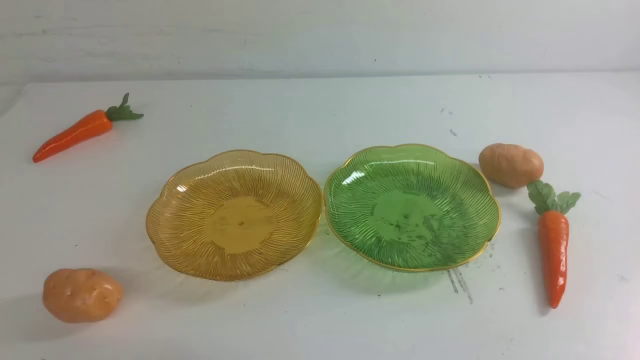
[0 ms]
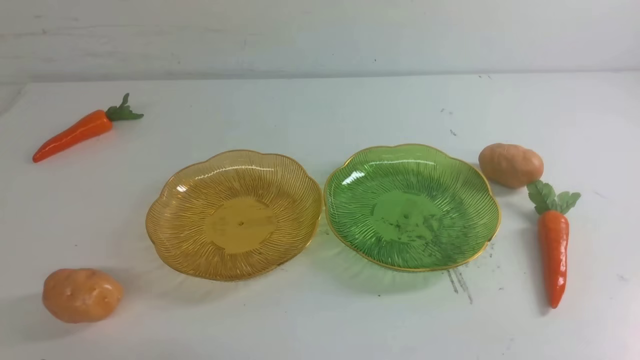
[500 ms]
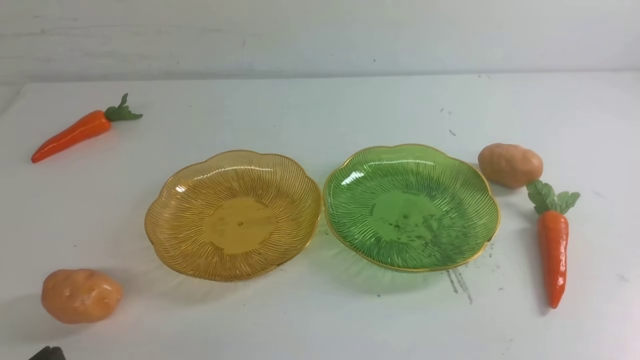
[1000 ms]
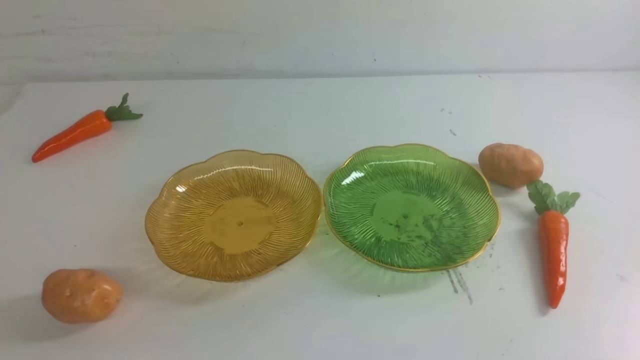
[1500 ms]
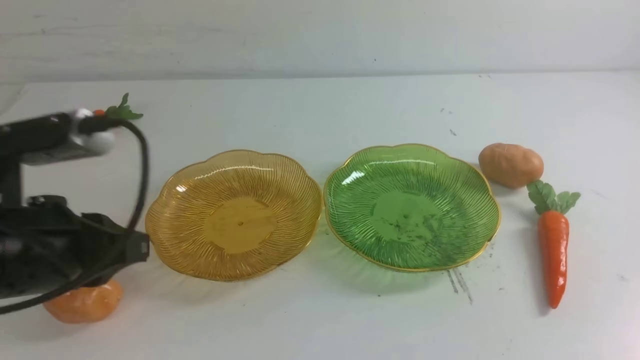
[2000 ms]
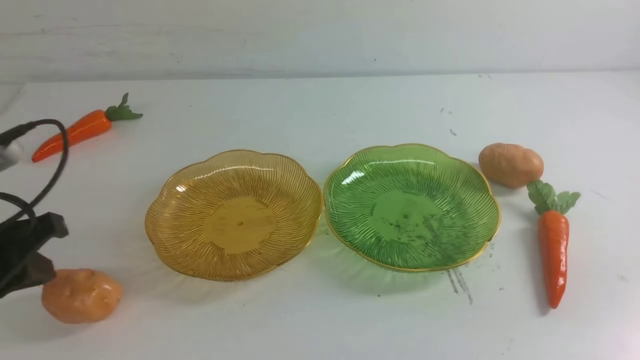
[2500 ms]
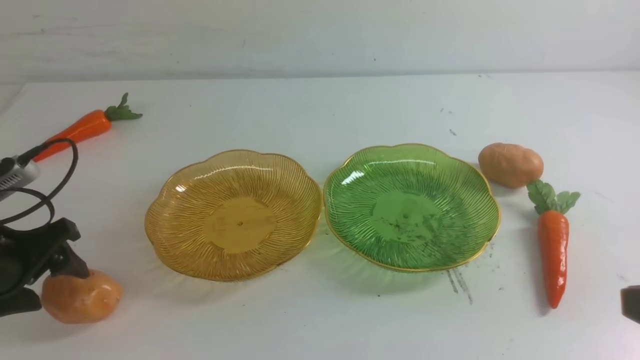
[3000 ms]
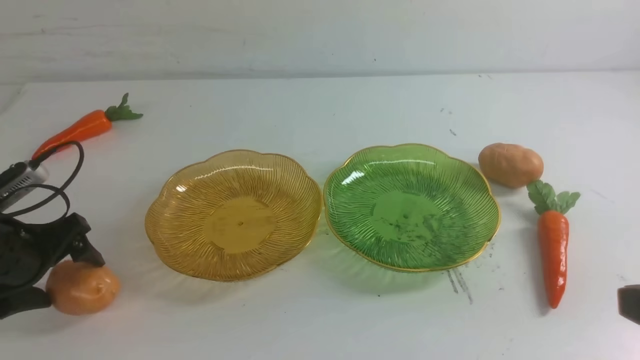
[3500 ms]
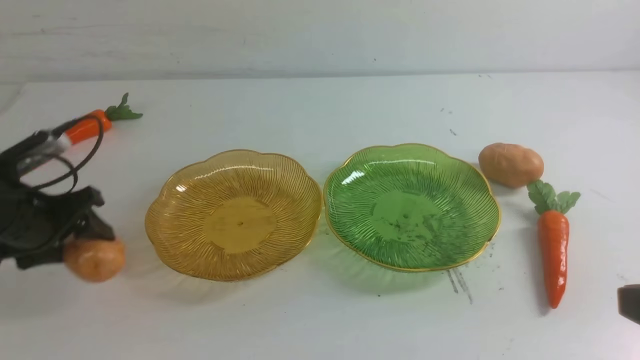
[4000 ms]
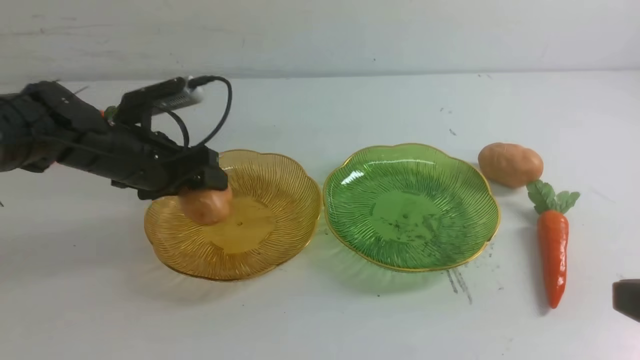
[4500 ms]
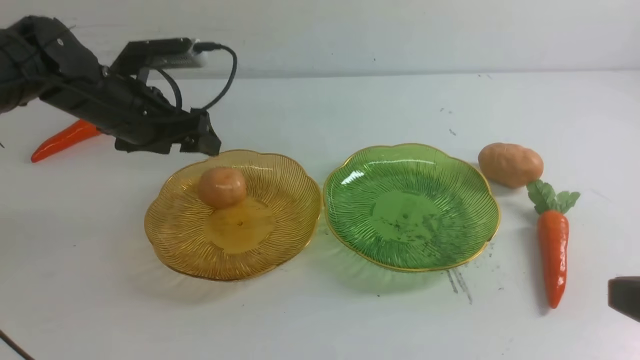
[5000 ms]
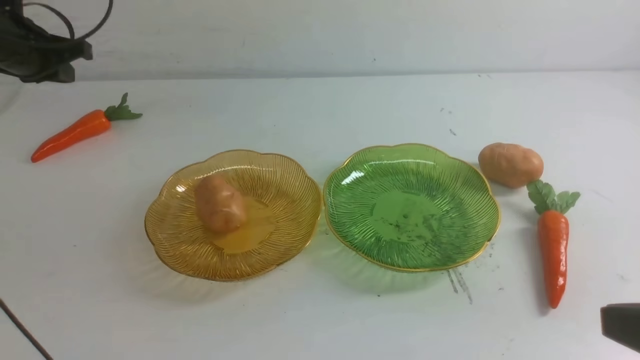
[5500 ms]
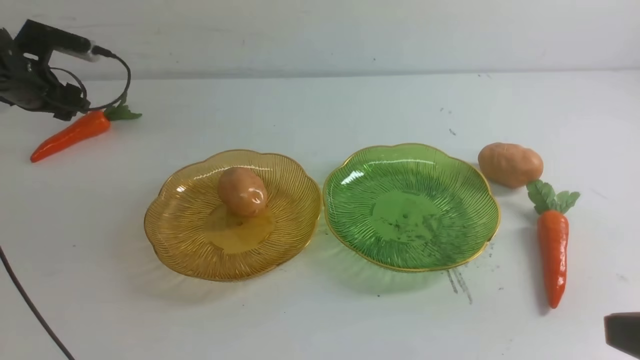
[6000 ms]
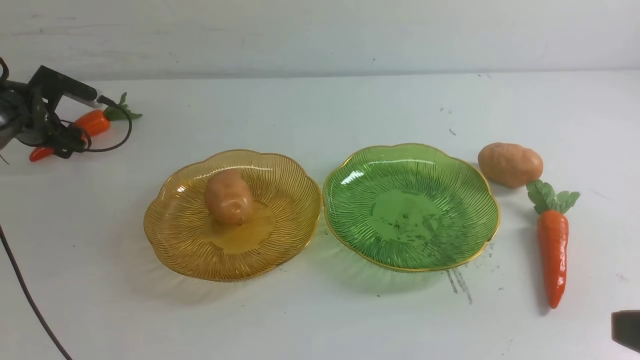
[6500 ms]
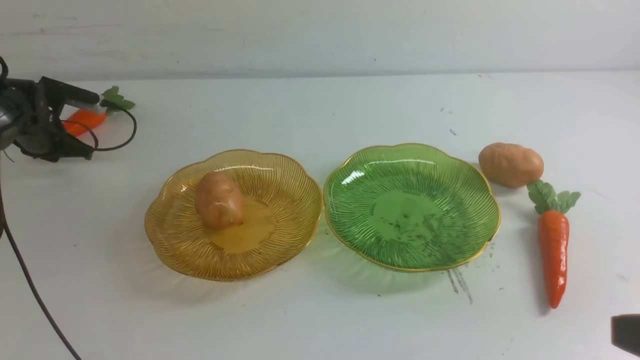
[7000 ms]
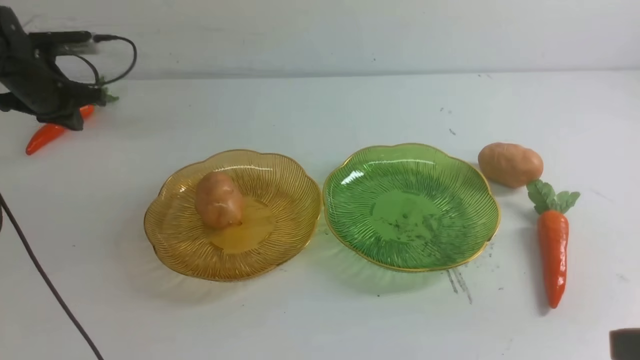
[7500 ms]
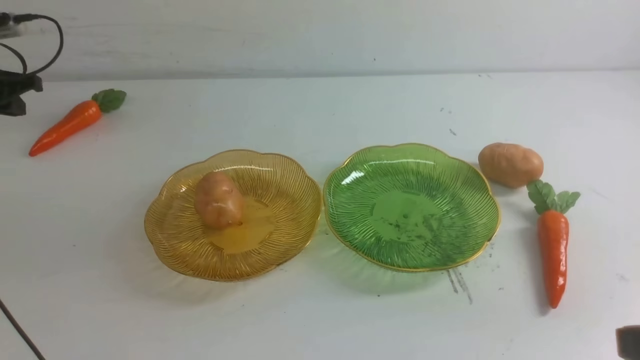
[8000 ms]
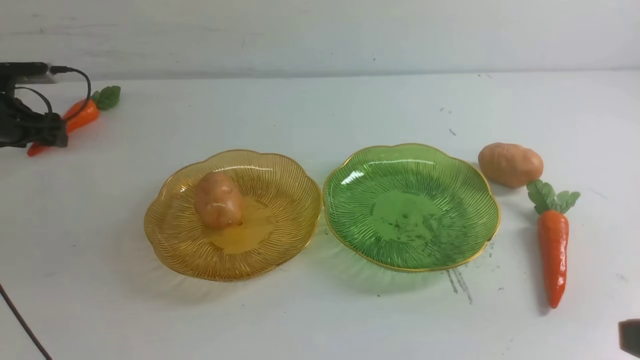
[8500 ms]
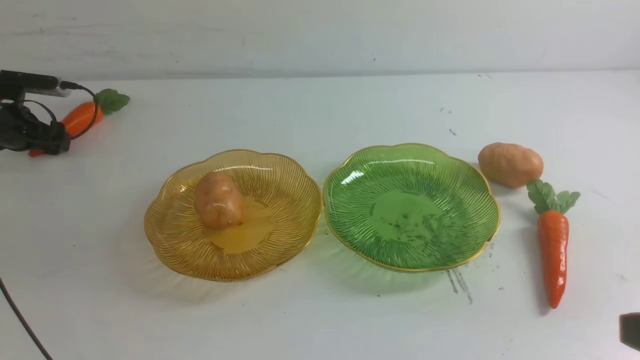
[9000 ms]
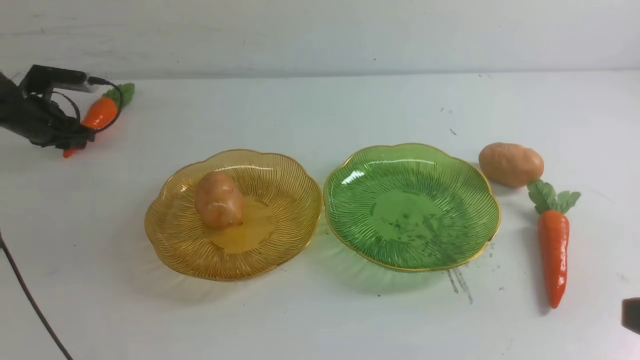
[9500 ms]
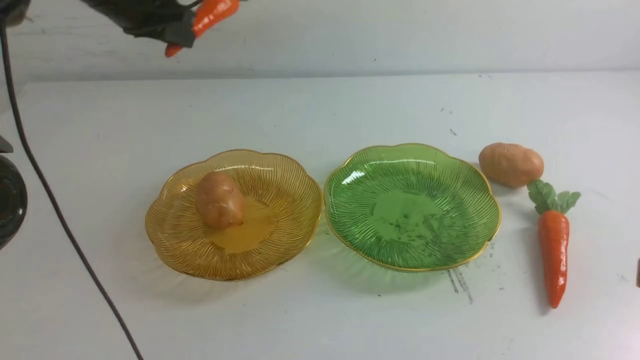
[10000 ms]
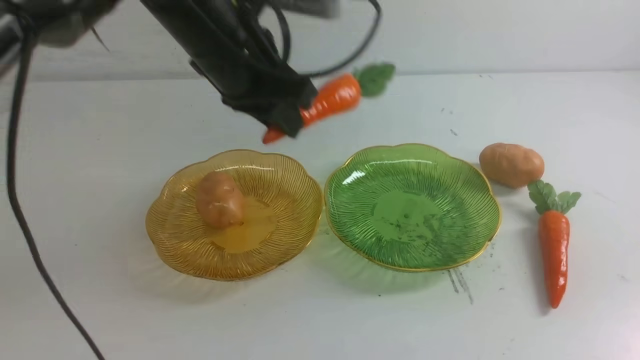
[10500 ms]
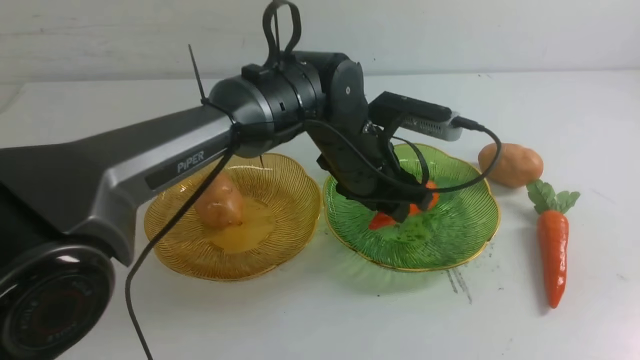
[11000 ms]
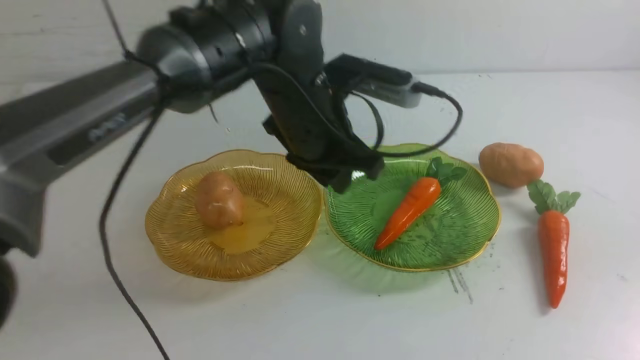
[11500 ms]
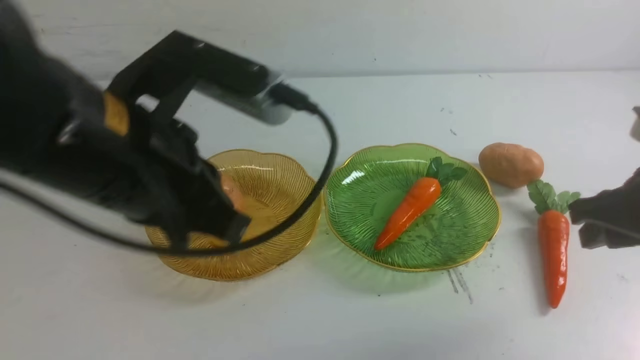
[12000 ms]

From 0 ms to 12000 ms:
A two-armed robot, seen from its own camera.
Step, from 0 ms to 5000 ms: Grab a potato with your left arm and put it on the left plate.
Step, from 5500 ms to 11500 ms: use the left arm to grab a carrot and put it into the right plate.
From 2000 ms to 4000 ms: The left gripper shifts some 20 cm forward, downward and to the left, and opens.
From 4000 ms to 6000 ms: The left gripper travels forward and to the left by some 25 cm, and closes, then opens again.
From 6000 ms to 8000 ms: The left gripper heads to the left, covering roughly 5 cm, travels downward and back again, roughly 5 cm each way, and closes its fingers.
From 8000 ms to 10000 ms: The left gripper goes approximately 20 cm to the right and upward, and opens, then closes once more.
From 10000 ms to 12000 ms: The left gripper heads backward, covering about 35 cm, while the right gripper travels forward and downward by approximately 25 cm, and opens.

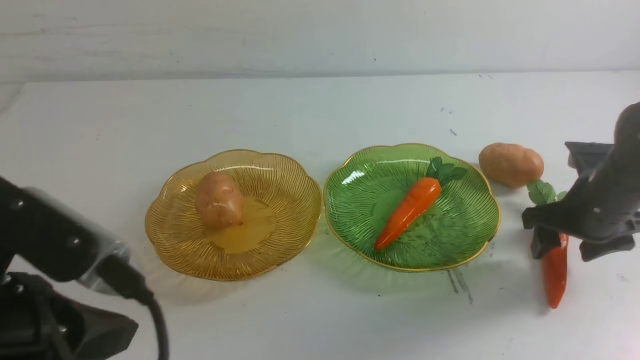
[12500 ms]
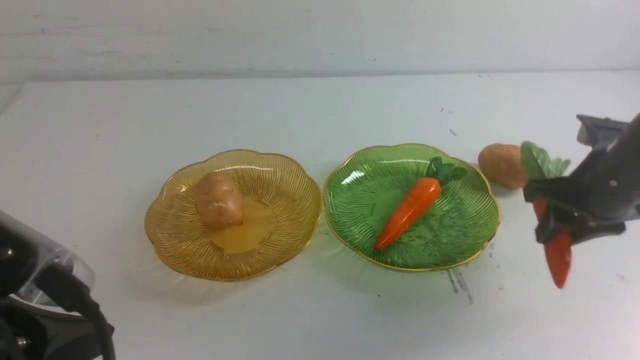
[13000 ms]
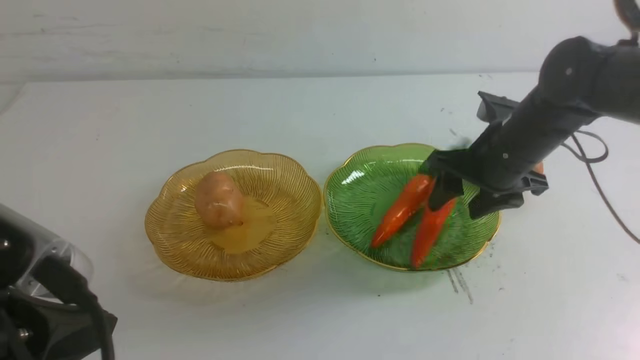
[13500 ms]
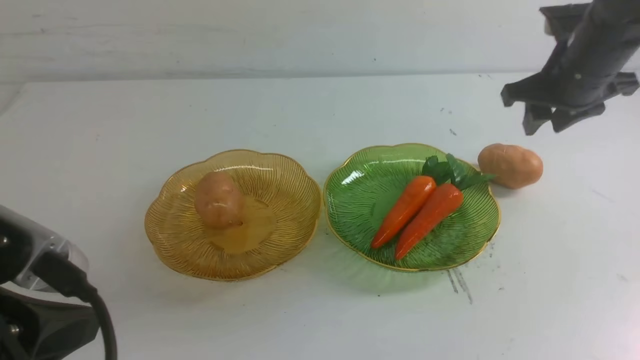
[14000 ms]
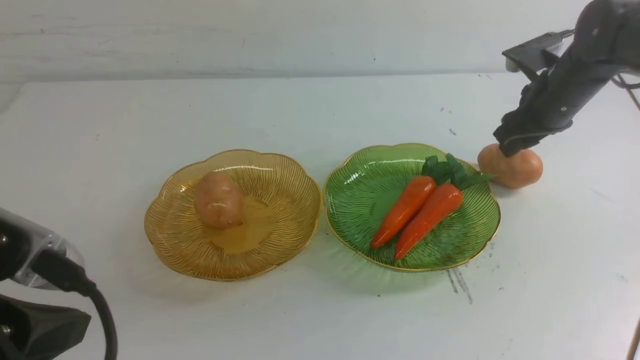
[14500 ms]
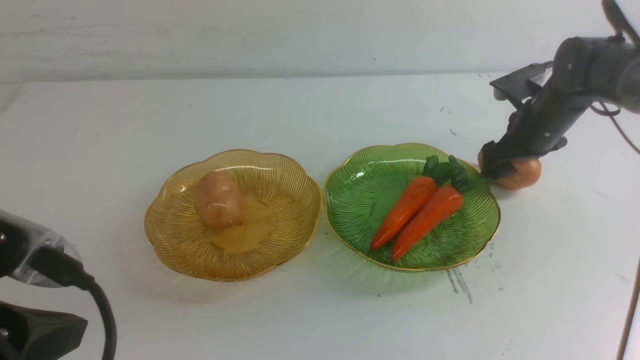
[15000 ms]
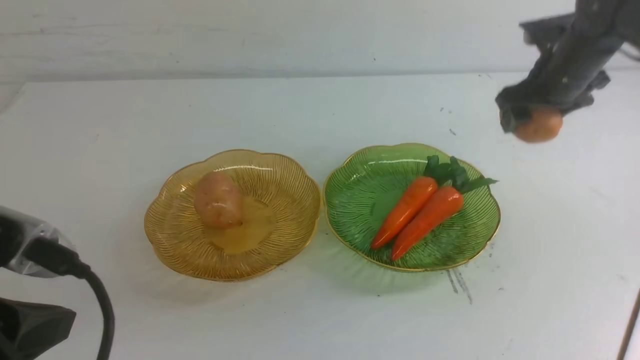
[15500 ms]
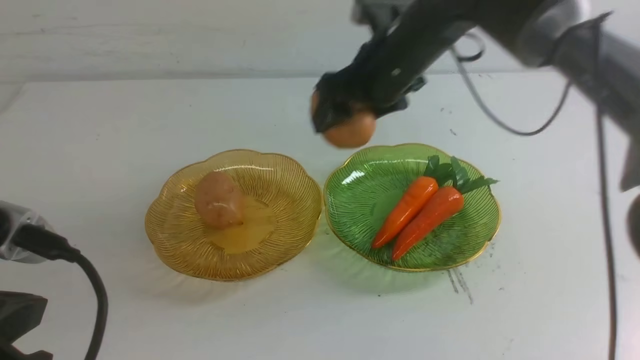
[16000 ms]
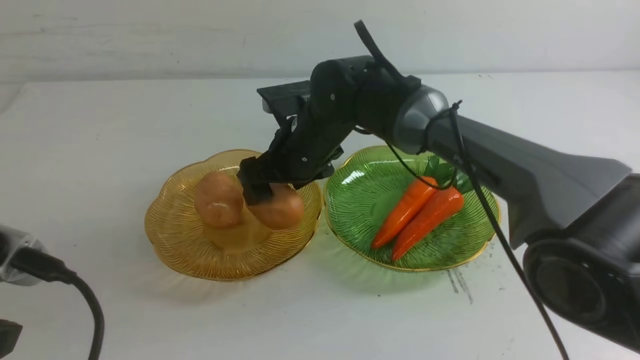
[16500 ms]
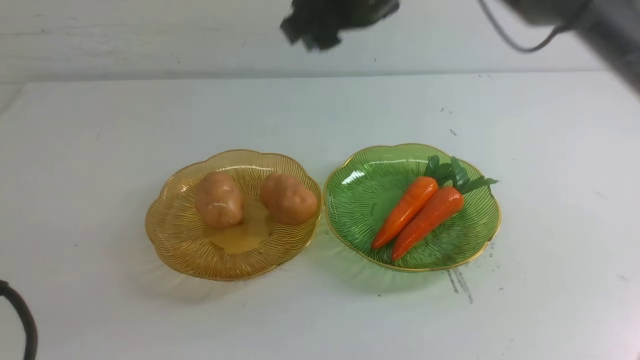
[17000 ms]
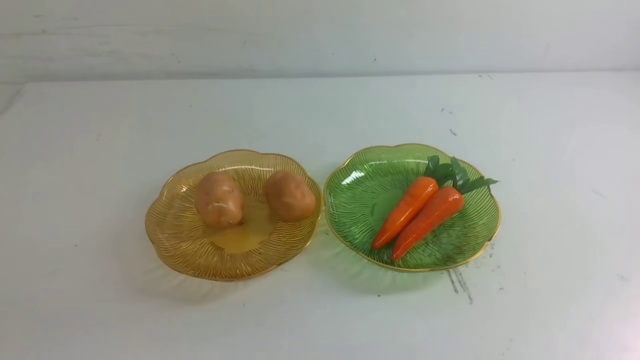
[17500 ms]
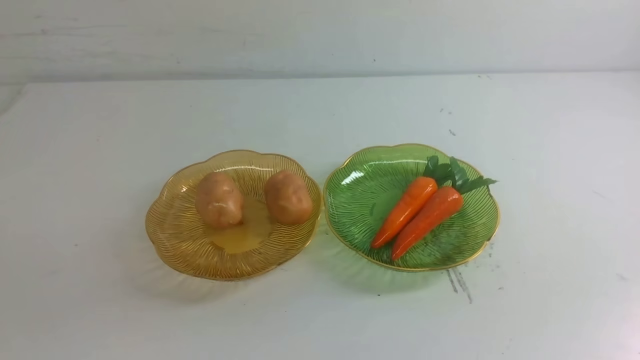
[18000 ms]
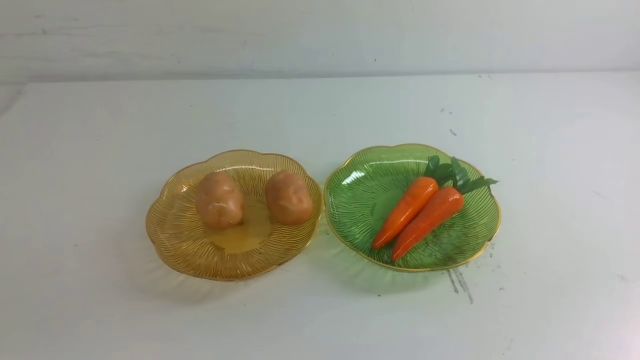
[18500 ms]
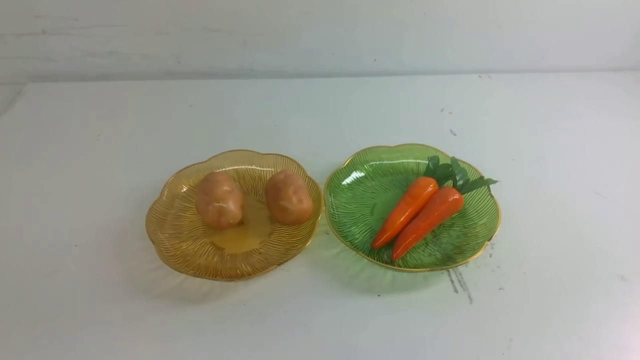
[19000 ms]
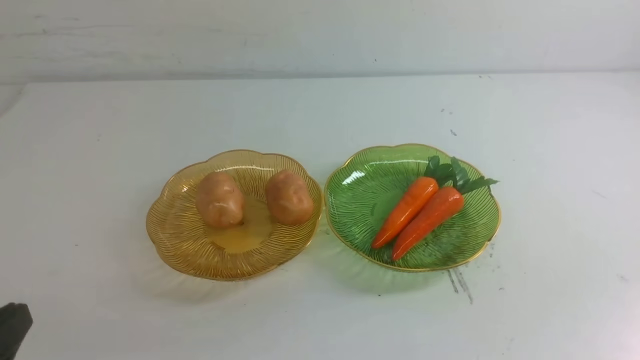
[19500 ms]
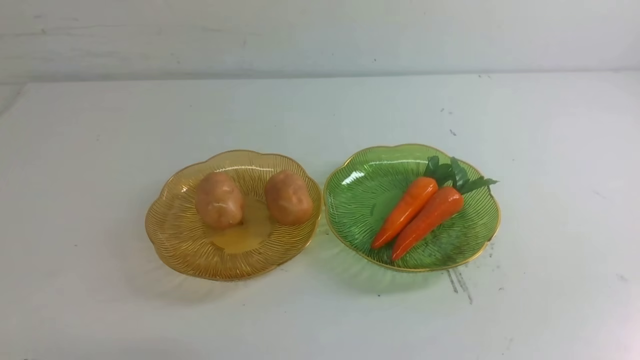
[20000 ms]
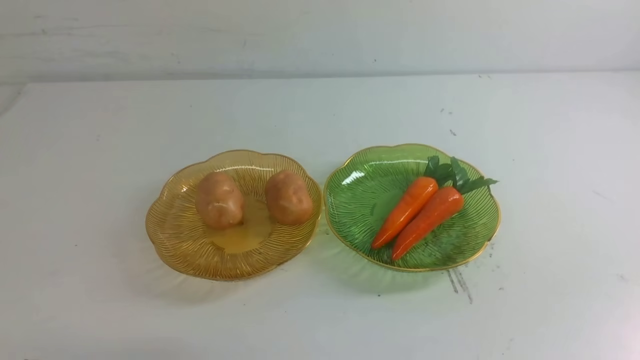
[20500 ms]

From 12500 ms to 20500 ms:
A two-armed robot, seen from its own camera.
Step, from 14000 ms to 16500 ms: Grab a potato with your right arm and put it on the left plate.
From 12500 ms to 14500 ms: The right gripper travels forward by some 15 cm, and opens up.
From 14500 ms to 16500 ms: The right gripper swings up and down, some 30 cm each way, with 2 reversals, and closes its fingers.
From 16500 ms to 18500 ms: The right gripper heads backward, to the right and downward, covering about 40 cm, and closes.
